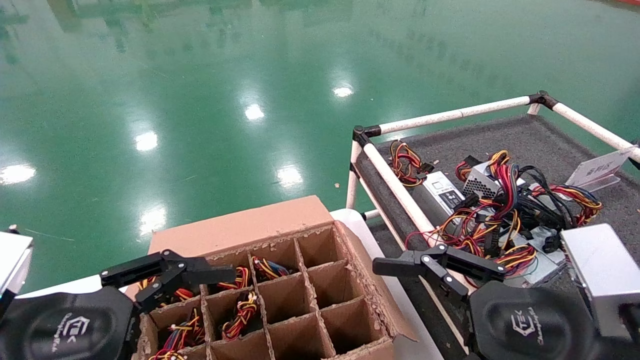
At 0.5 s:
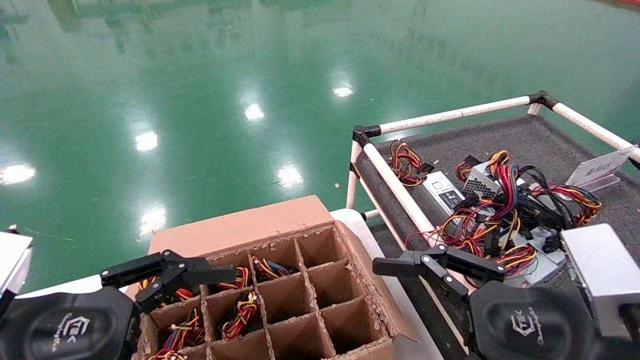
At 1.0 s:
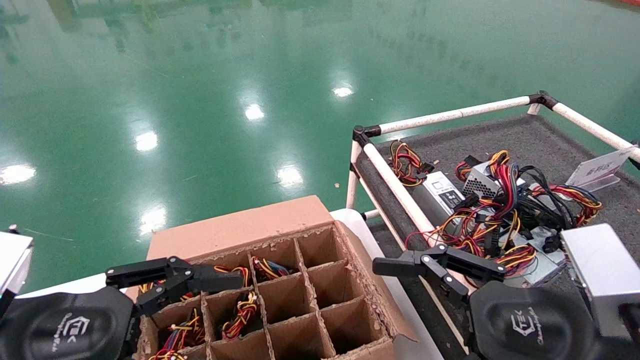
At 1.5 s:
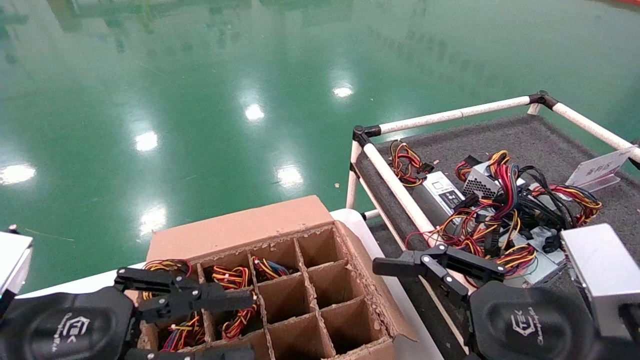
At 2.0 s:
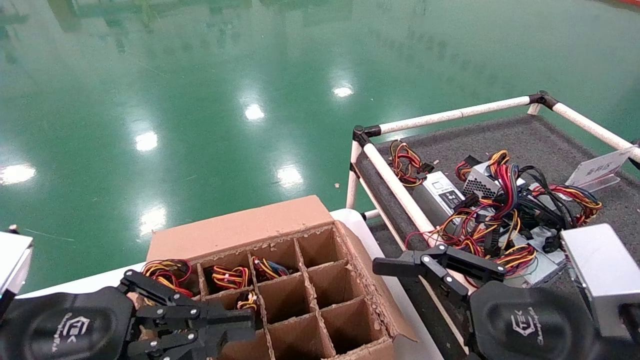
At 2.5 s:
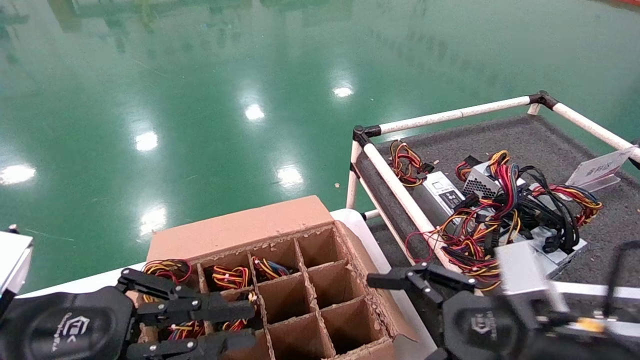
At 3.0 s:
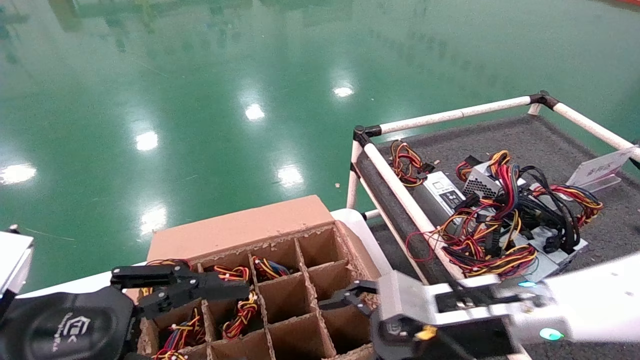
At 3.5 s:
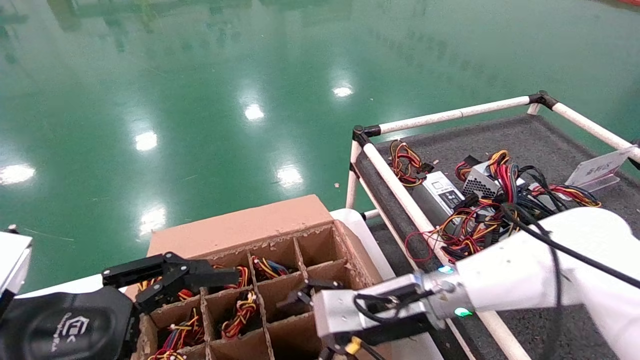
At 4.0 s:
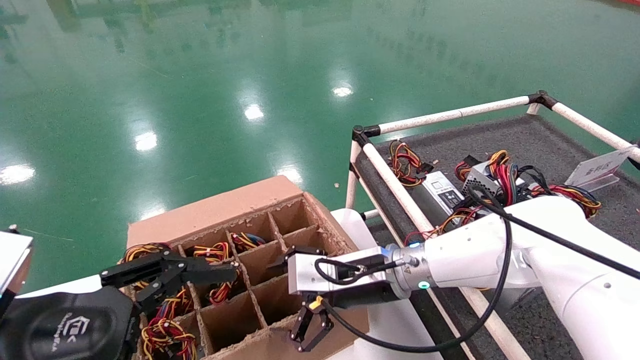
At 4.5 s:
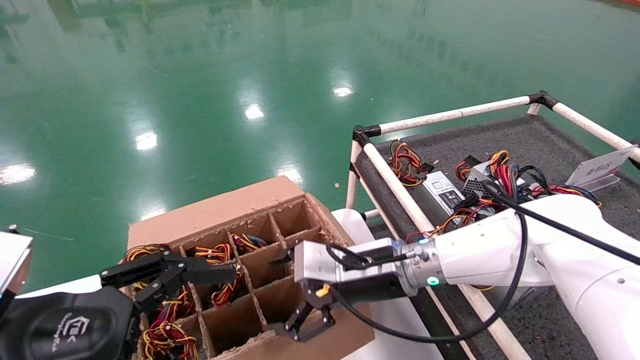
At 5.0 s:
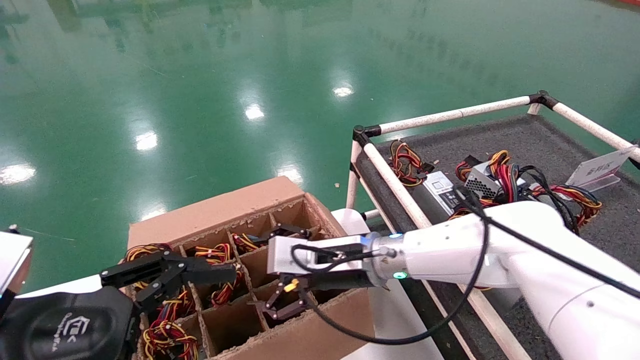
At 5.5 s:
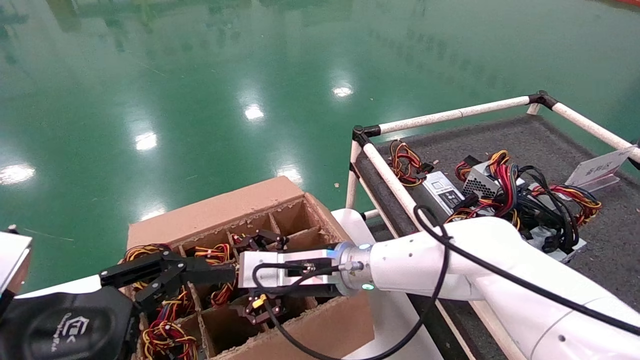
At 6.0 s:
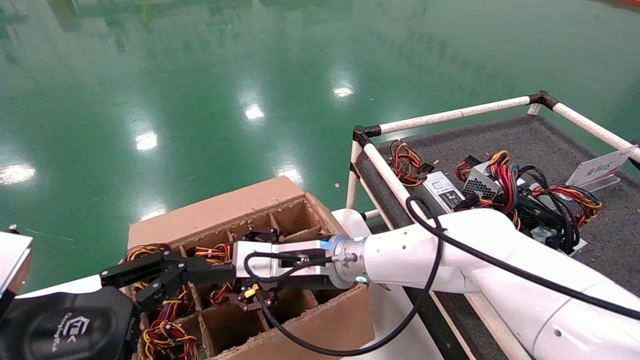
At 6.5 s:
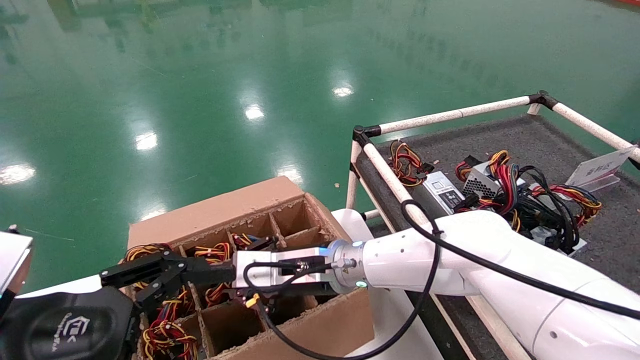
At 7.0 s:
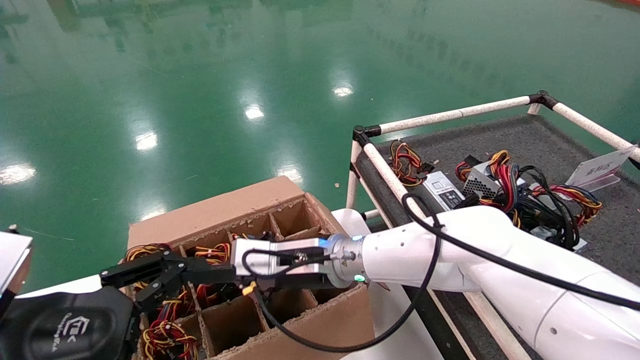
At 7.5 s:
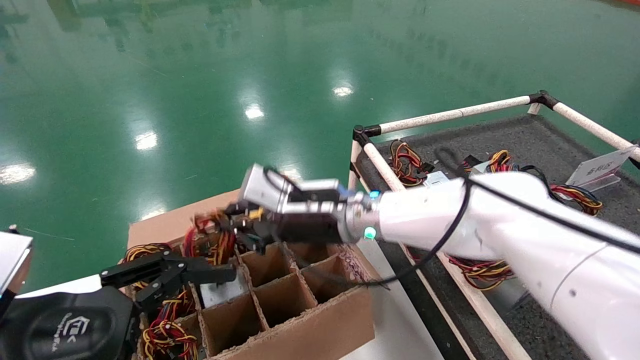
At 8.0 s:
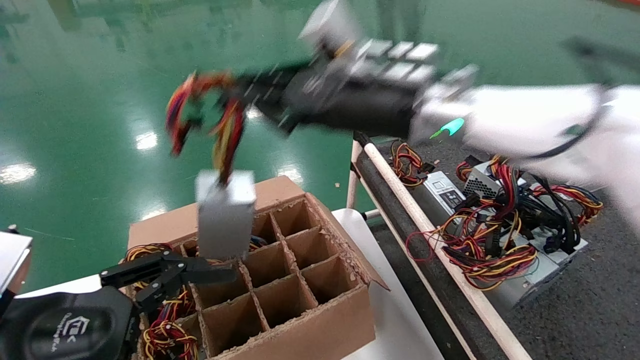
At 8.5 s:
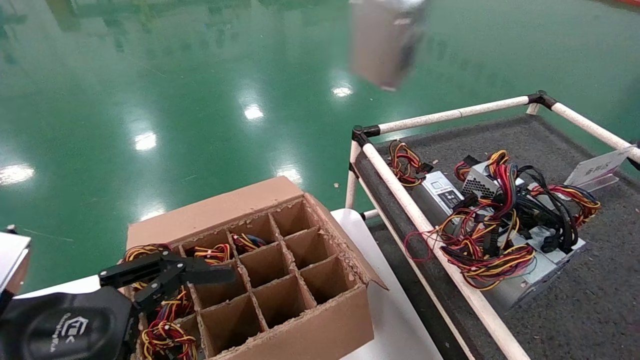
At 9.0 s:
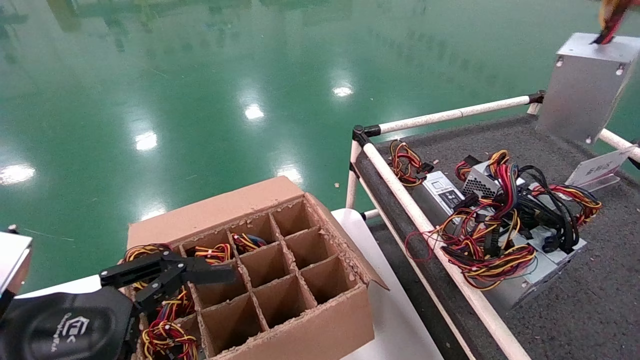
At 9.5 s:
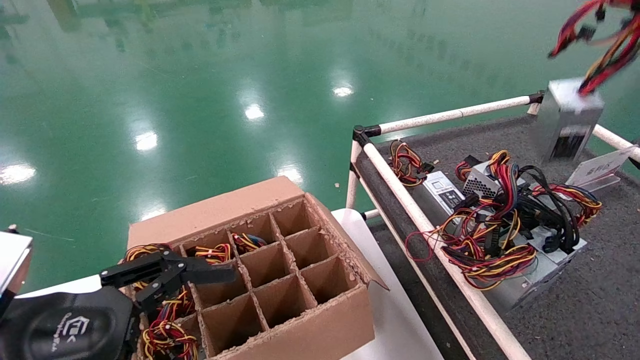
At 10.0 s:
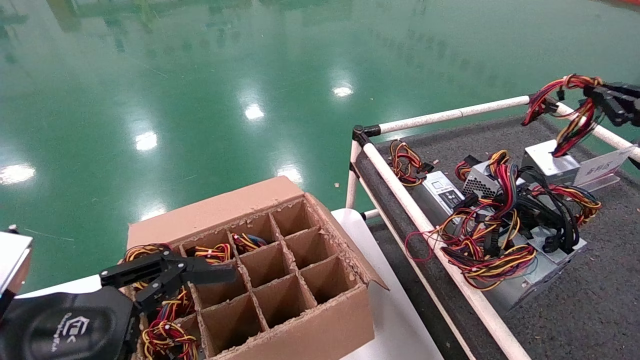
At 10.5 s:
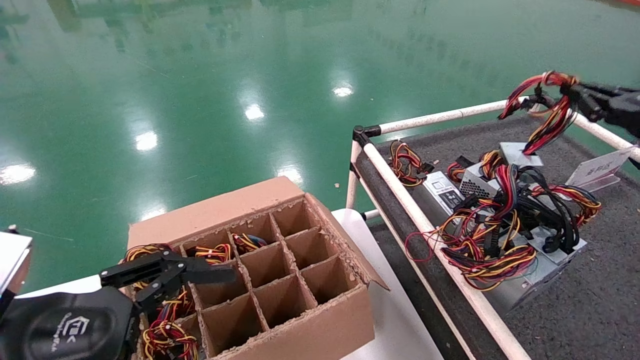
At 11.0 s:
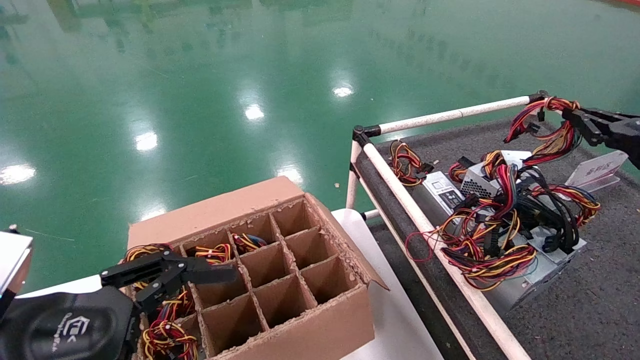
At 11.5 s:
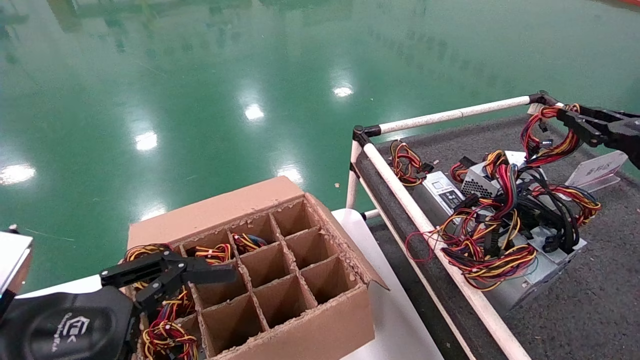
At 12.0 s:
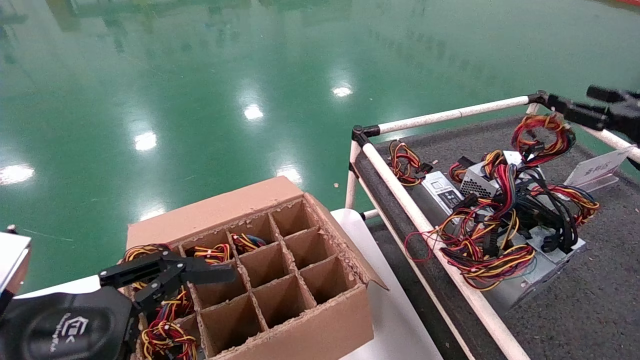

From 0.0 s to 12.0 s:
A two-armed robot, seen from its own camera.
Step, from 3.0 s to 7.0 s: Grab and lift the power supply from the large box.
From 0.0 s to 2.0 s: The left gripper closes.
From 2.0 s to 4.0 s: The right gripper is displaced forward and to the left by about 25 cm. The left gripper opens its fingers.
From 4.0 s to 6.0 s: The right gripper goes some 10 cm to the left.
From 6.0 s to 8.0 s: The right gripper heads upward and to the right, covering about 25 cm, and closes its fingers.
From 8.0 s to 10.0 s: The right gripper travels to the right by roughly 40 cm.
From 10.0 s to 12.0 s: The right gripper opens up.

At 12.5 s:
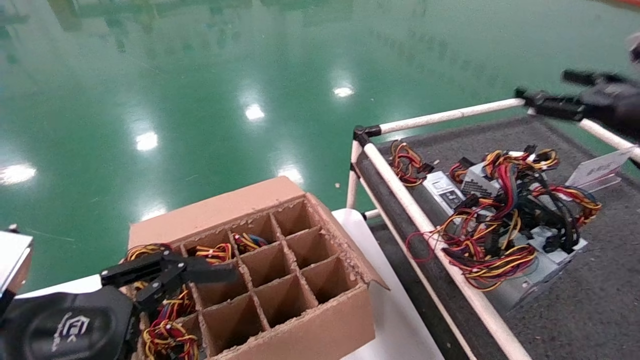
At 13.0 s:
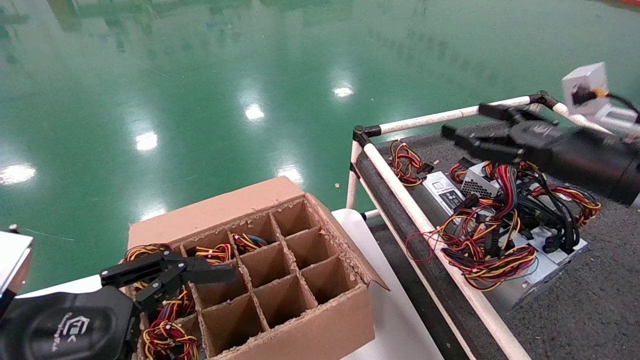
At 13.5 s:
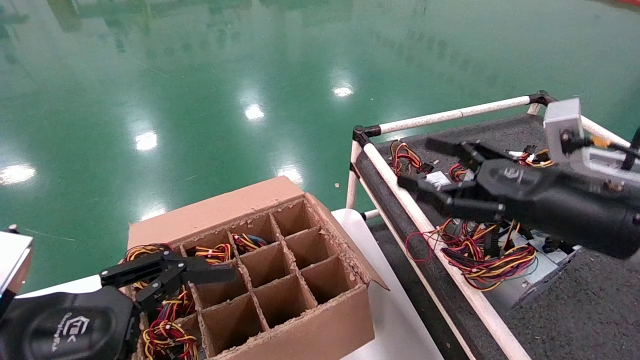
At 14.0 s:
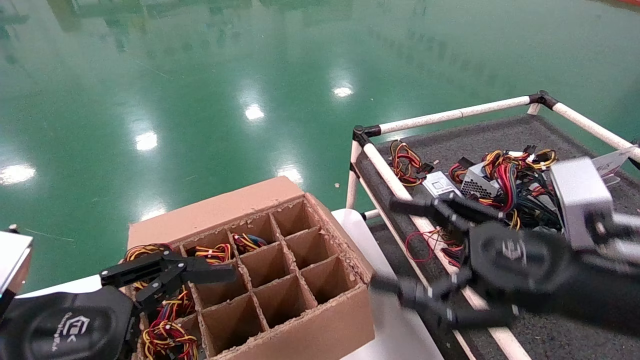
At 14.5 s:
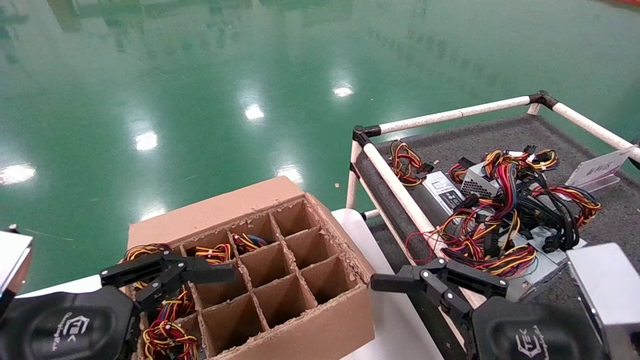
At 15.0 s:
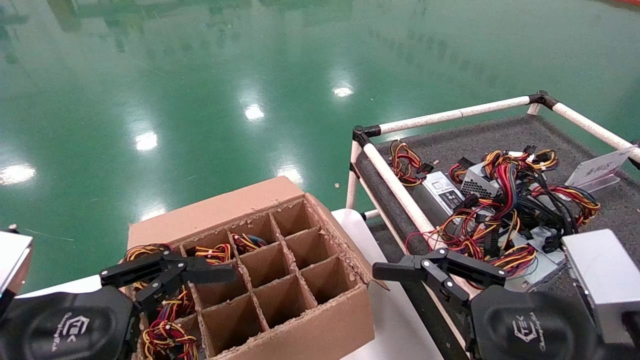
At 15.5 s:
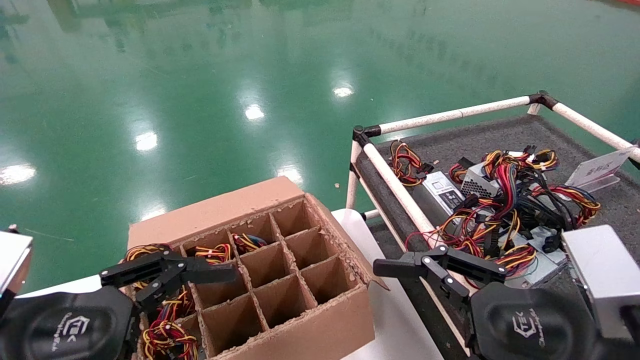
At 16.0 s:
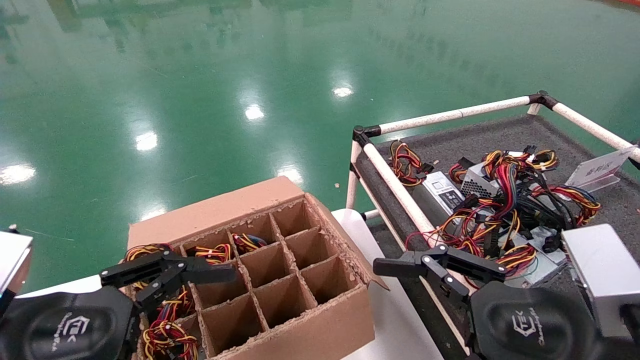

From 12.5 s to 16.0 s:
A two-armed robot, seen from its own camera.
From 12.5 s to 14.5 s: The right gripper is displaced backward, to the left and downward by about 30 cm.
From 14.5 s to 16.0 s: Neither gripper changes place.
